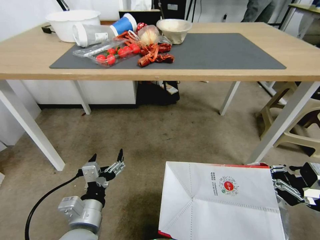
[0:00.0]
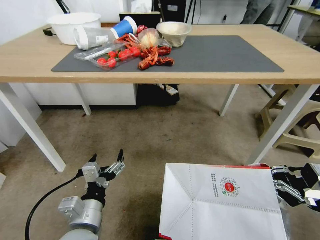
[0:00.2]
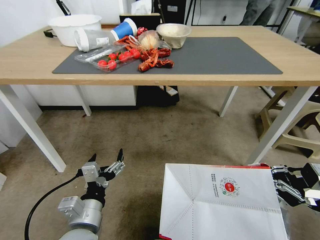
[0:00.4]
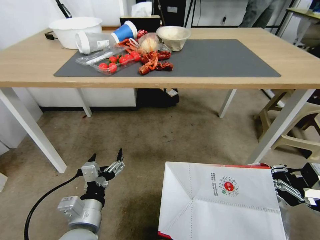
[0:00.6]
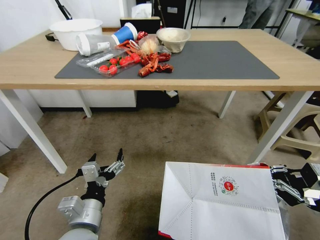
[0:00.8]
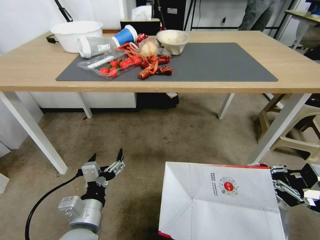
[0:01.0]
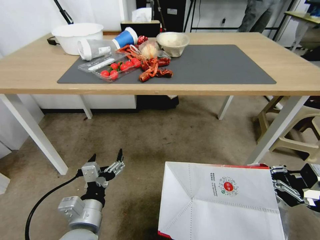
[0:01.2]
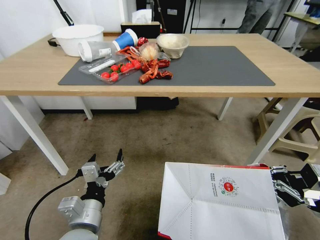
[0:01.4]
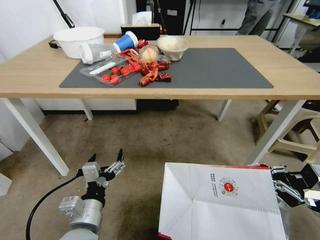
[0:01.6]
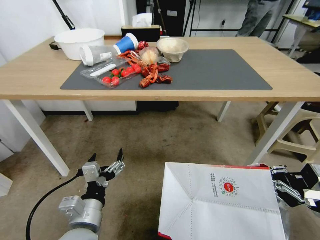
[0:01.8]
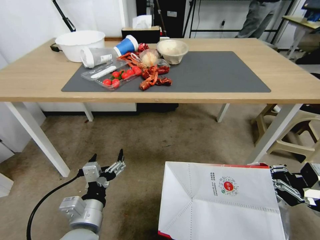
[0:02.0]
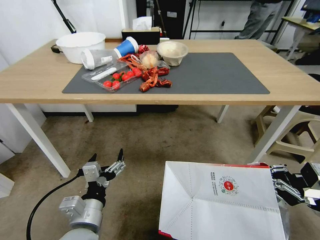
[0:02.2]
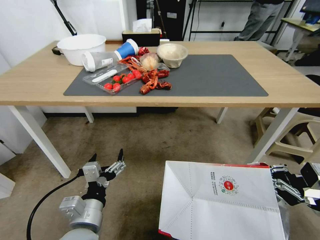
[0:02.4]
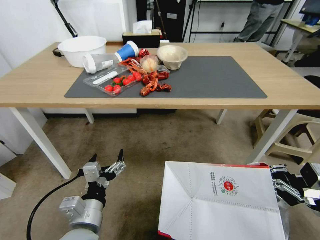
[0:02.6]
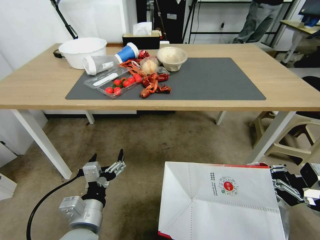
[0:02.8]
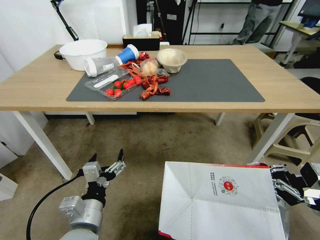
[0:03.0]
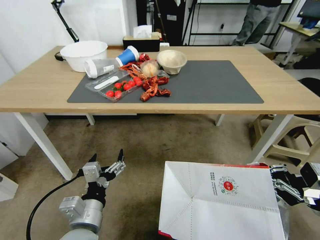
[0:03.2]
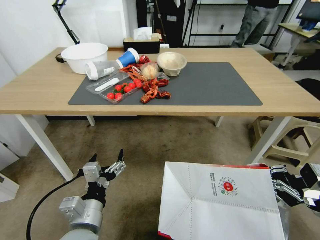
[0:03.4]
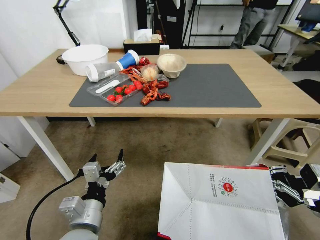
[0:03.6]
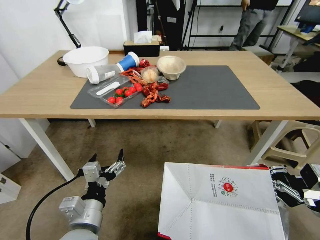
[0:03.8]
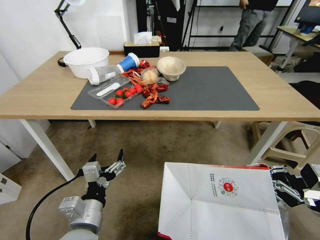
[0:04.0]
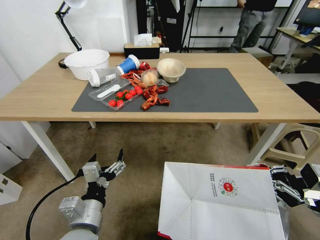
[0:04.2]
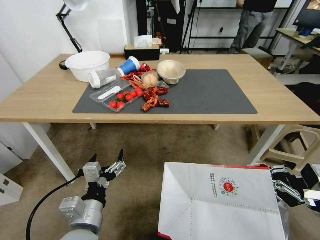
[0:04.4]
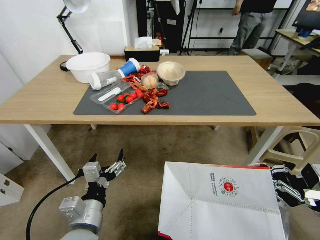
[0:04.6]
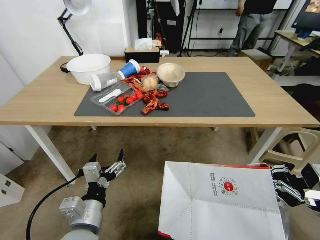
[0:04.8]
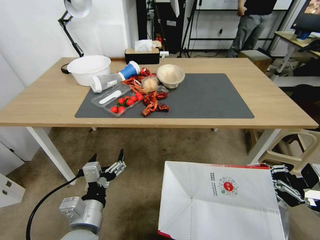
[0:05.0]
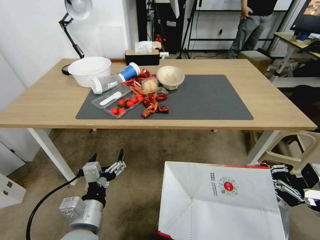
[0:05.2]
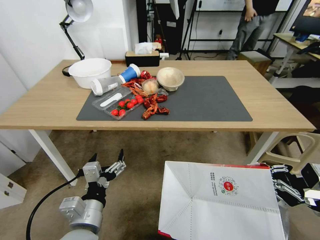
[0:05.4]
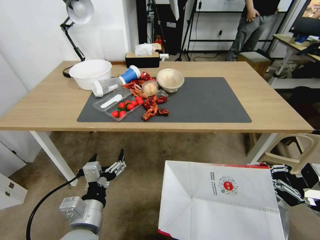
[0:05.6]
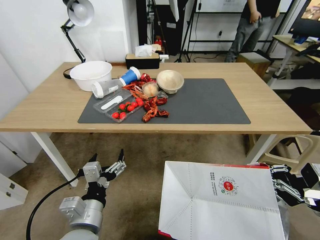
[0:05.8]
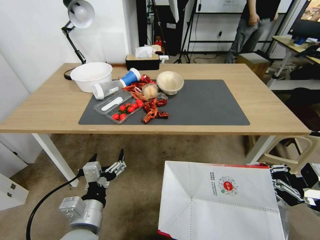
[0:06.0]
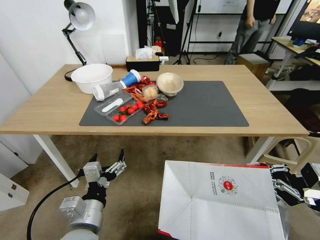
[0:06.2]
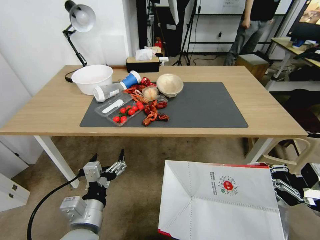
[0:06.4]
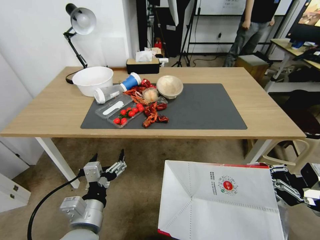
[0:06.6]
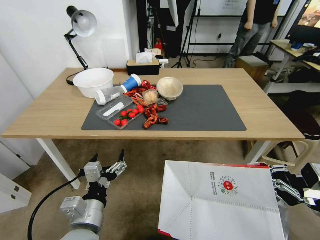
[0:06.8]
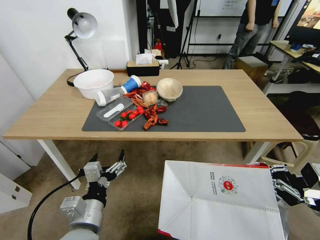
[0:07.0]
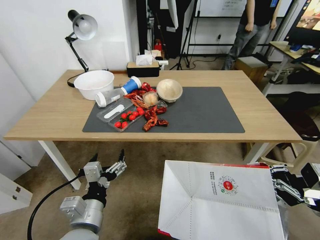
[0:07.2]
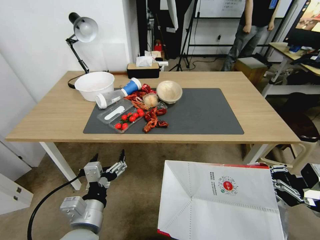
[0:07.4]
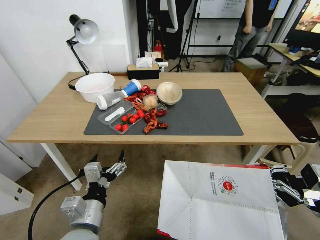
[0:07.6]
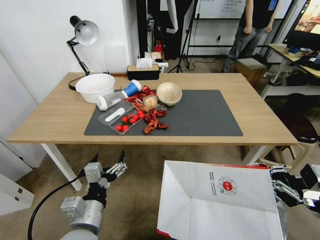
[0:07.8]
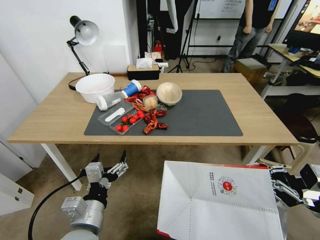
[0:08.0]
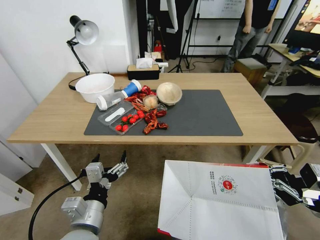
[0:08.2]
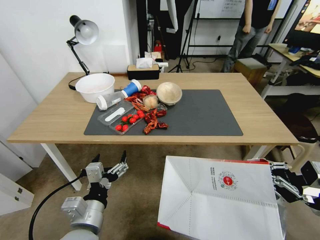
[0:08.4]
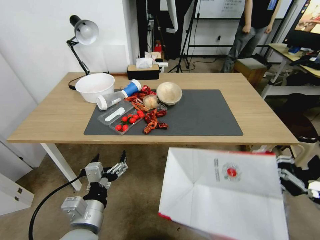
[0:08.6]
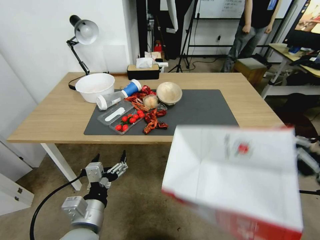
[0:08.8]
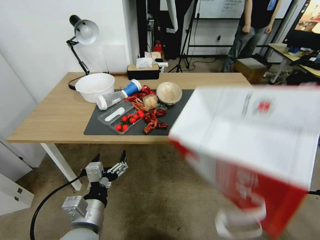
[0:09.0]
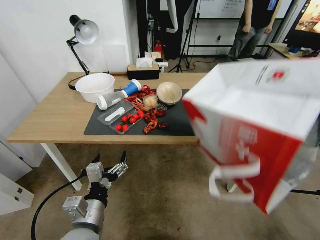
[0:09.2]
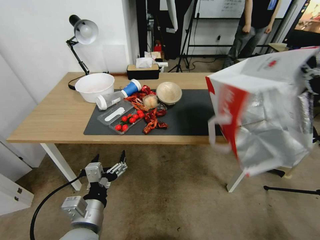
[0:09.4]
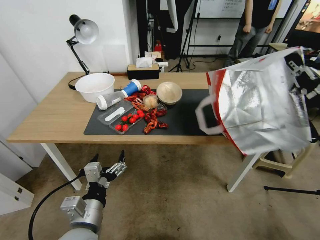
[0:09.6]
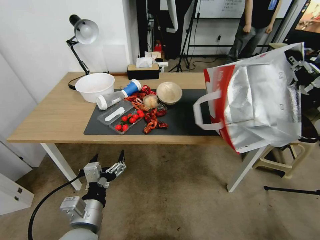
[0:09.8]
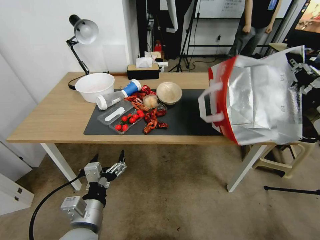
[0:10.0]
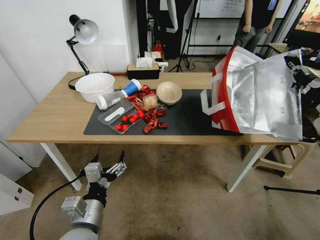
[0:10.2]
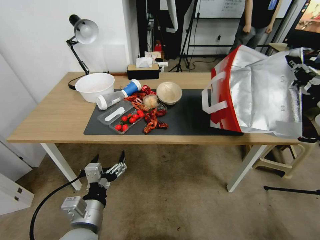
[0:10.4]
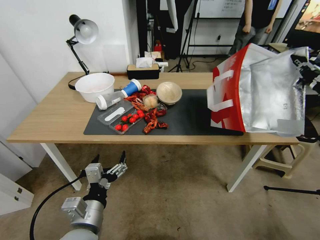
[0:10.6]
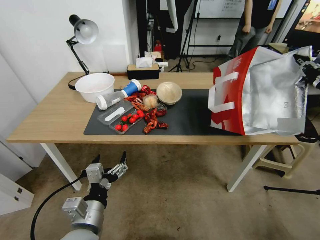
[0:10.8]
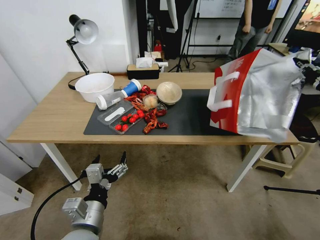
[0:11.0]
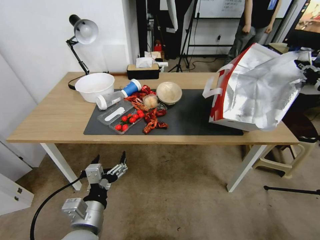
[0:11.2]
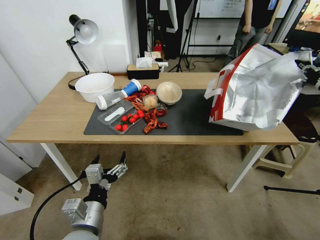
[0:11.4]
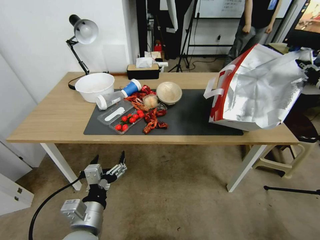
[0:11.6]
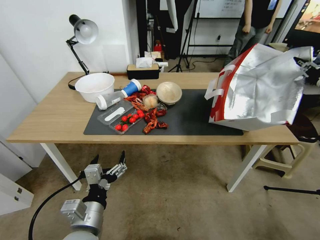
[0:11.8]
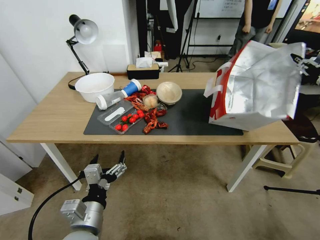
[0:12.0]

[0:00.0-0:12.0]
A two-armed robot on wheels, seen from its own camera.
Task of the whole recording: Pick up the food delivery bag from the floor and place it on the table.
0:09.0 to 0:10.4: The right gripper shifts about 15 cm forward and upward.
0:10.4 to 0:12.0: The right gripper travels to the right by some 5 cm.

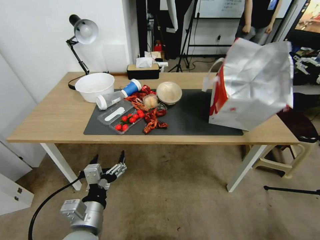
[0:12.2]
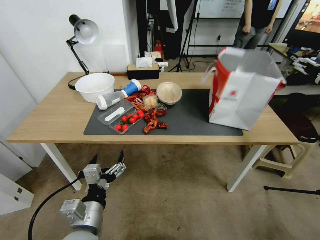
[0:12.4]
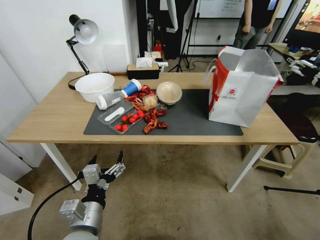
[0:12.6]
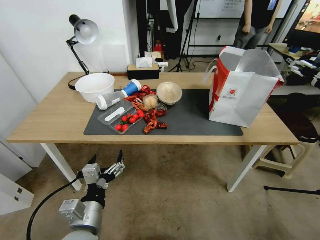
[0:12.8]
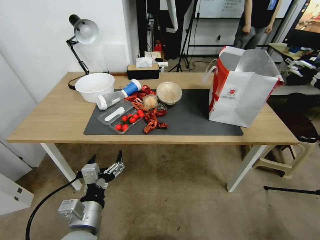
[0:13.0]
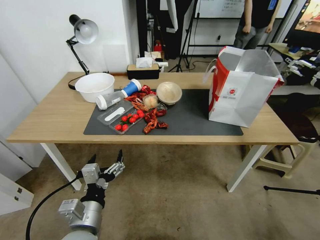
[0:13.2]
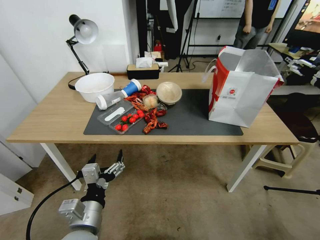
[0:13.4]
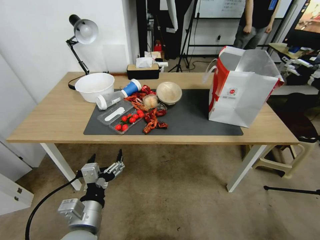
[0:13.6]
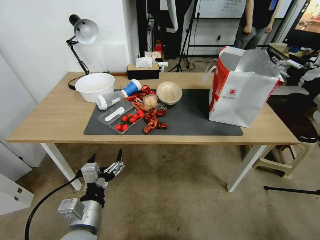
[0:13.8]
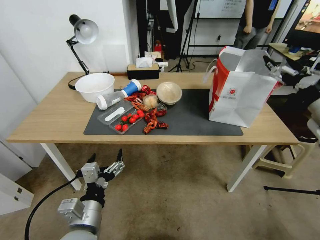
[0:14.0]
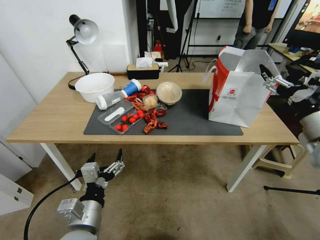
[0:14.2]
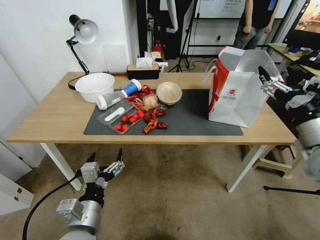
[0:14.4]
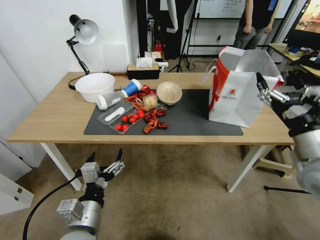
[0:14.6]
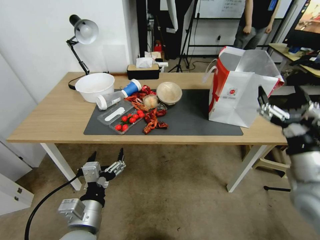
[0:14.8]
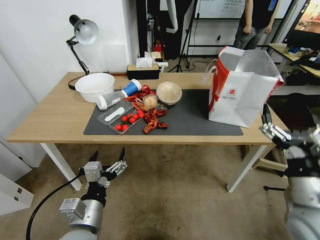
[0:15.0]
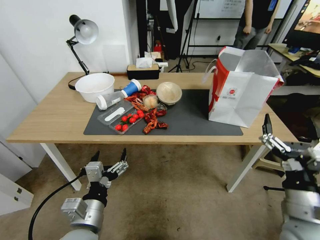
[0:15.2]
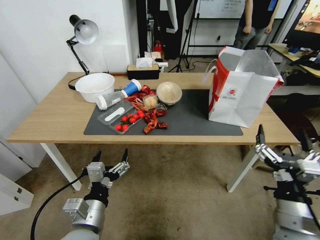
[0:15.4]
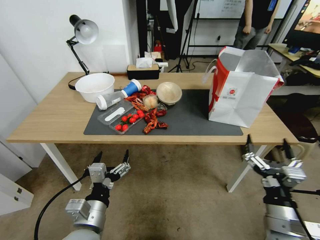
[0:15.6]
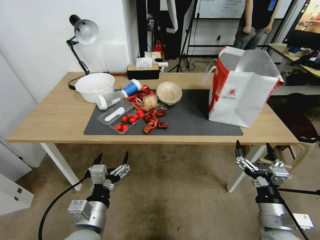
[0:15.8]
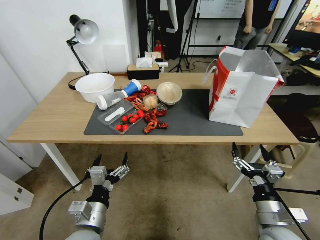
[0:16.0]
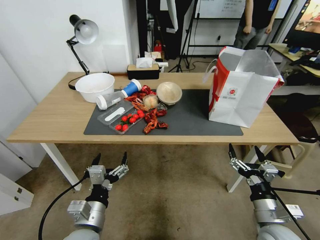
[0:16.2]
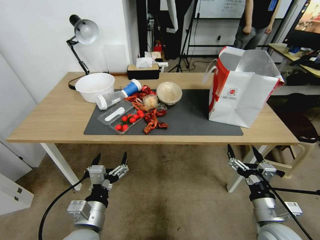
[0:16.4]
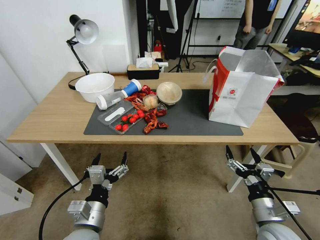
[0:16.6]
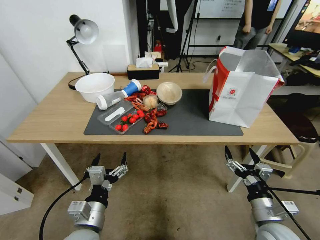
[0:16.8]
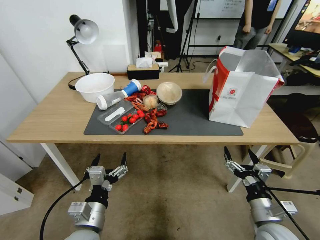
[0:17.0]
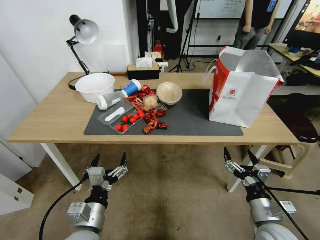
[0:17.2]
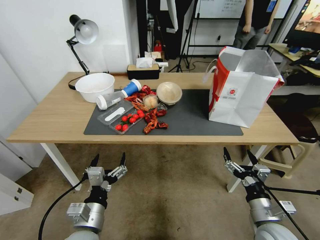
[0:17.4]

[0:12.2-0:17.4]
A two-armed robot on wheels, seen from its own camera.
Task of the whole recording: Pick up the food delivery bag from the floor and place it on the table.
0:12.2 to 0:14.0: The right gripper shifts about 10 cm to the left, and opens up.
0:14.0 to 0:15.6: The right gripper goes approximately 30 cm downward, backward and to the left.
0:15.6 to 0:17.4: The right gripper shifts roughly 5 cm downward.

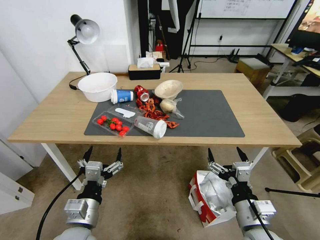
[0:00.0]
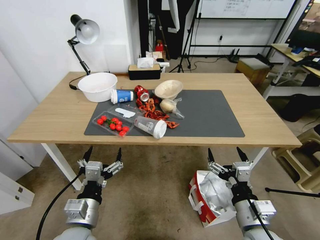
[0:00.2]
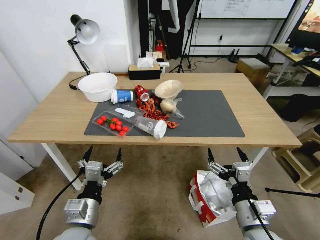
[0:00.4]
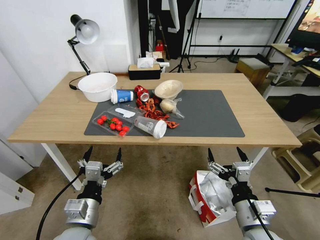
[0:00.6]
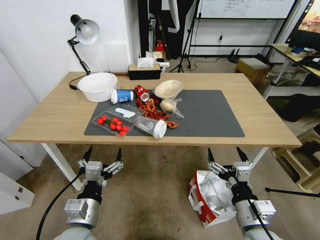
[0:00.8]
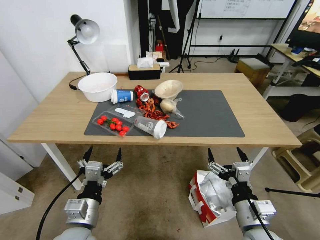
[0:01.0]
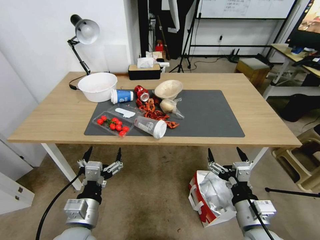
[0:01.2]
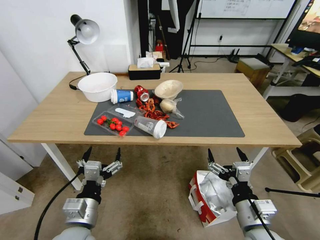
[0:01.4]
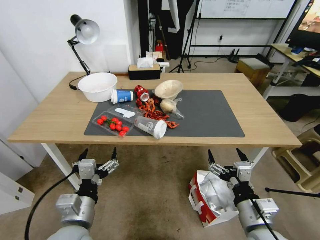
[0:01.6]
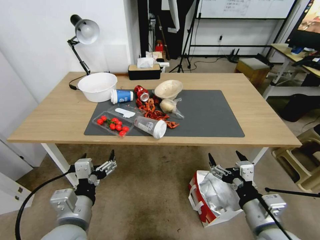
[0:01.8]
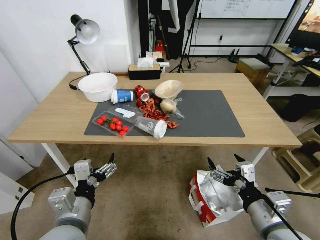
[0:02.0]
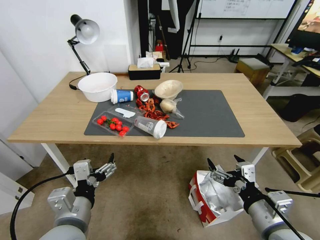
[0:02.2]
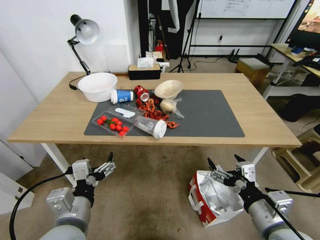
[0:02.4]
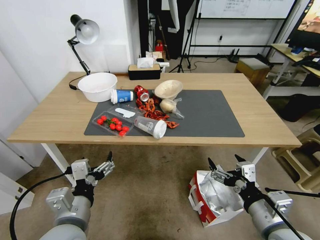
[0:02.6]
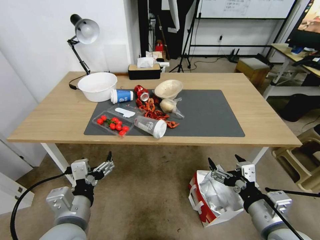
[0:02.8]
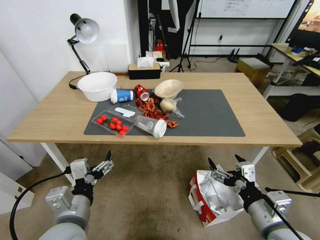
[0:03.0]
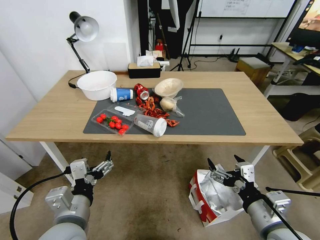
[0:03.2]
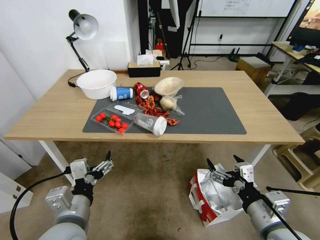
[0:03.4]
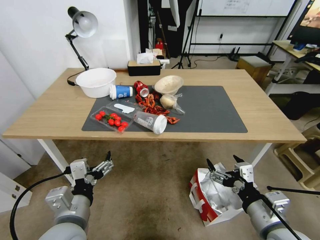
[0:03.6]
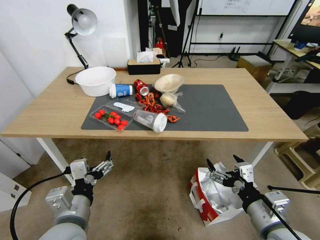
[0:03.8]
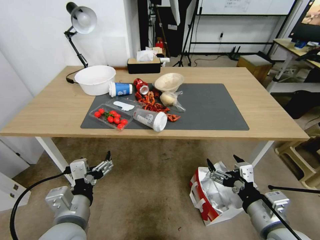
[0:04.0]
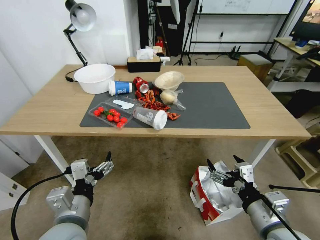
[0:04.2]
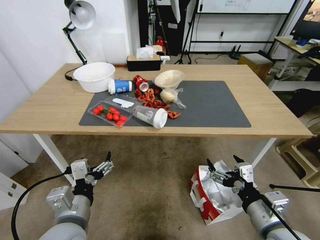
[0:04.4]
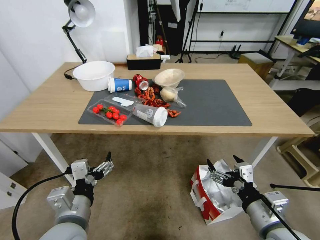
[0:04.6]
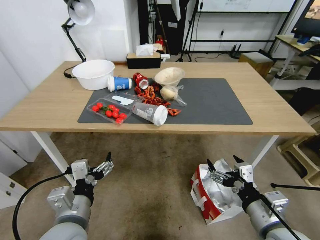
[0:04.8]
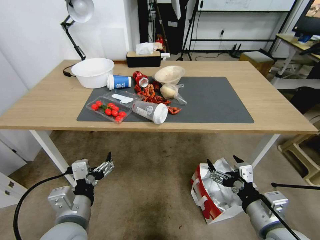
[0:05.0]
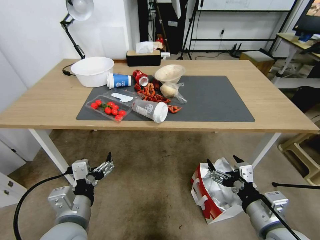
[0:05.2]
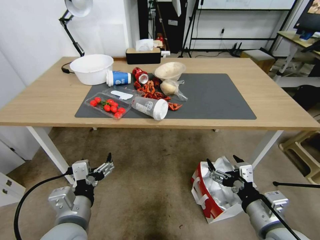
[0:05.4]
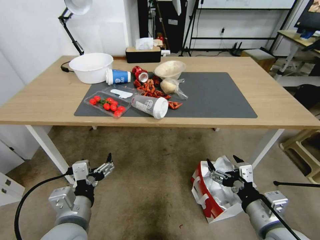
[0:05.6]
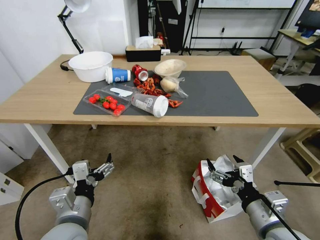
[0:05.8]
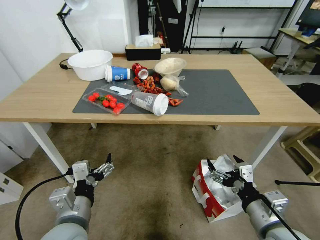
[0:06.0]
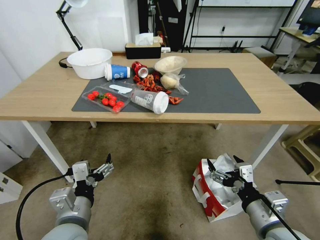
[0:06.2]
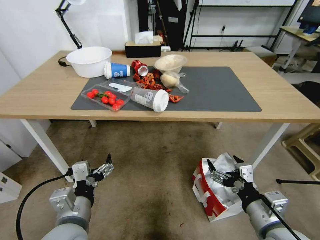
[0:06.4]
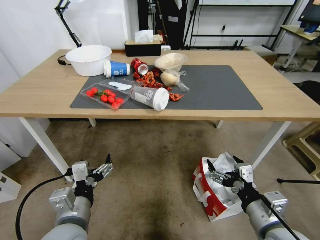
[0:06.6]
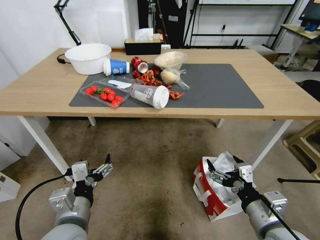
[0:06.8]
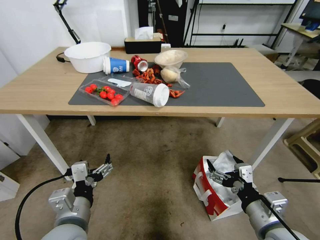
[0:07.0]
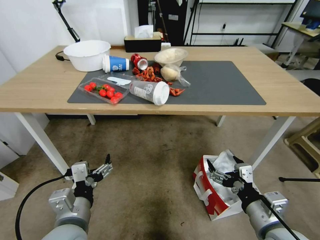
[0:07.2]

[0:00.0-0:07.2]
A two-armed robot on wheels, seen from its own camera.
Task of the whole recording: Pick up the food delivery bag from the floor and place it on the table.
0:01.4 to 0:02.8: The two grippers go roughly 5 cm upward.
